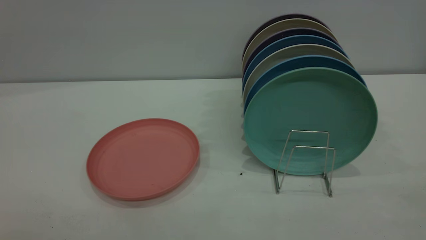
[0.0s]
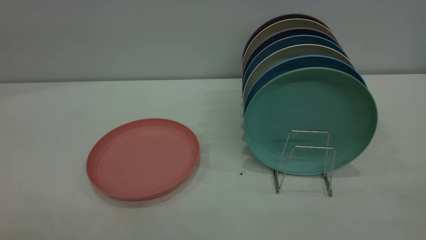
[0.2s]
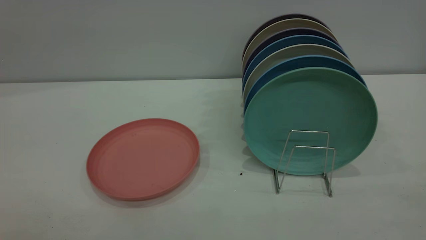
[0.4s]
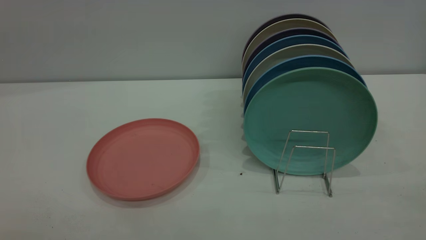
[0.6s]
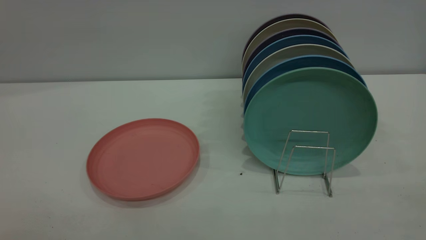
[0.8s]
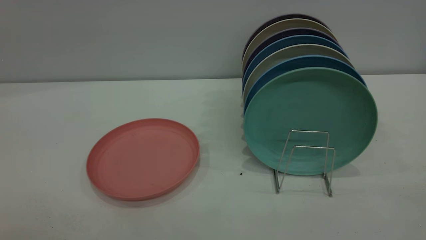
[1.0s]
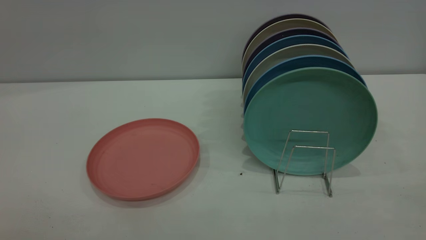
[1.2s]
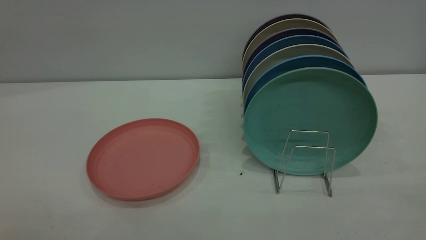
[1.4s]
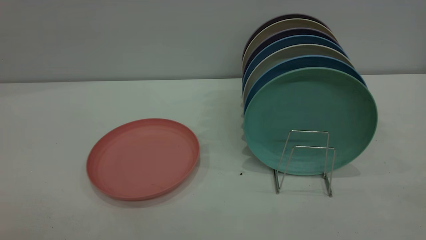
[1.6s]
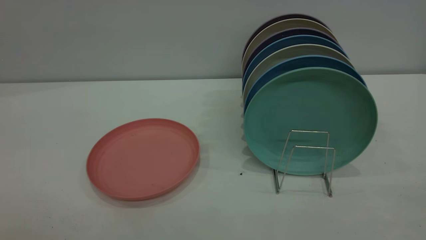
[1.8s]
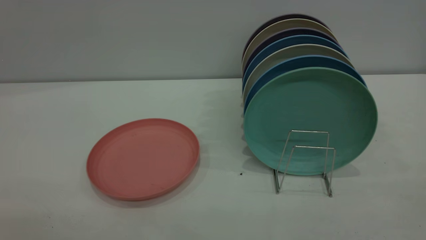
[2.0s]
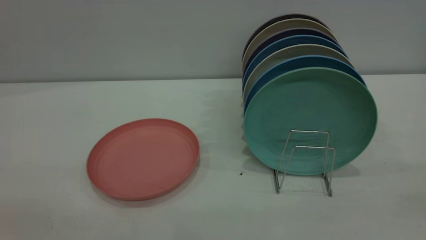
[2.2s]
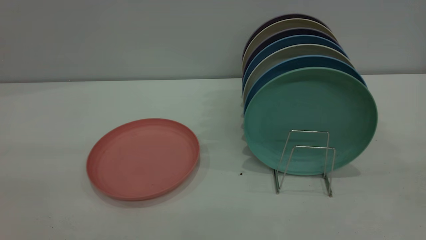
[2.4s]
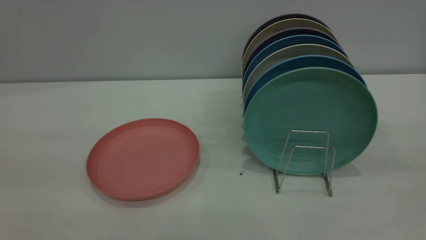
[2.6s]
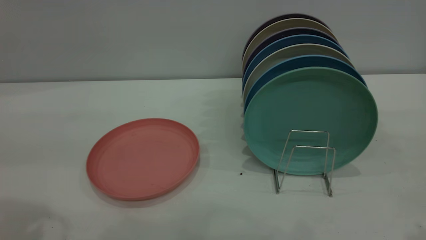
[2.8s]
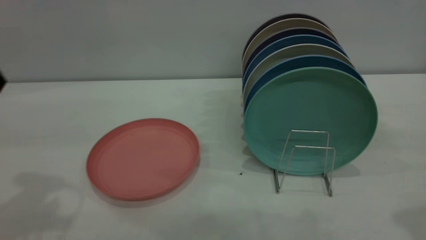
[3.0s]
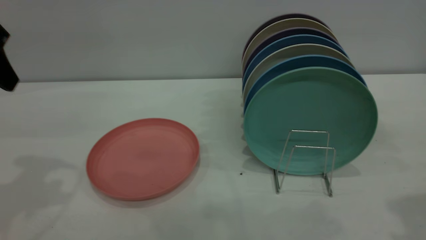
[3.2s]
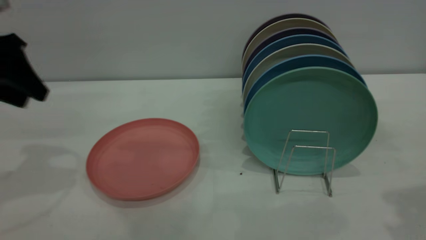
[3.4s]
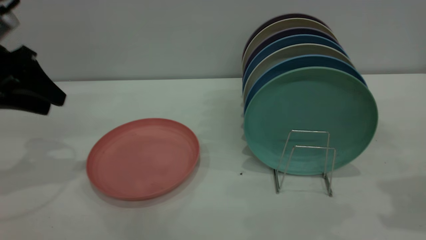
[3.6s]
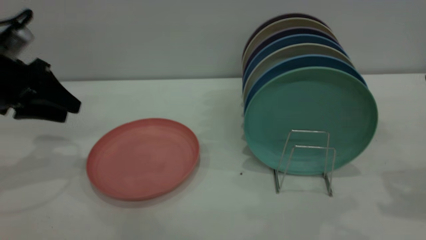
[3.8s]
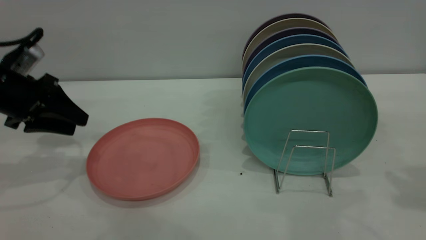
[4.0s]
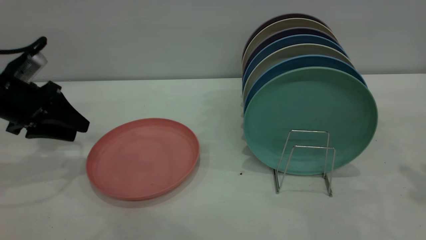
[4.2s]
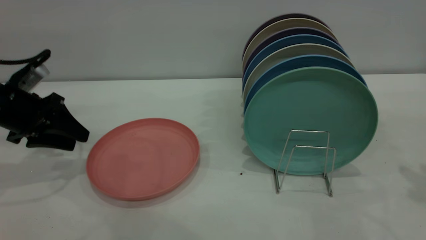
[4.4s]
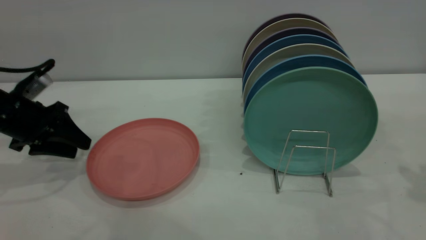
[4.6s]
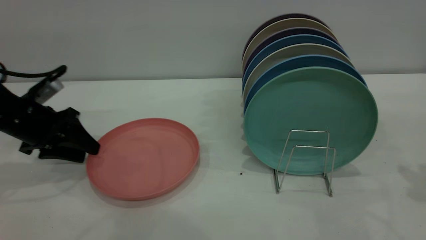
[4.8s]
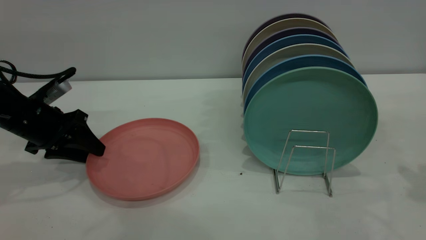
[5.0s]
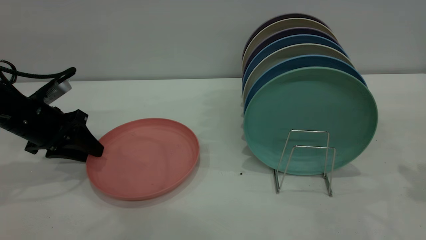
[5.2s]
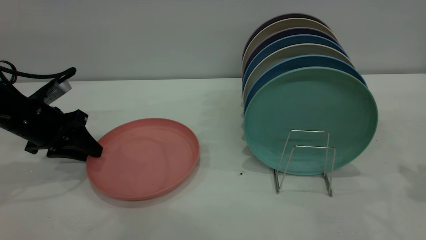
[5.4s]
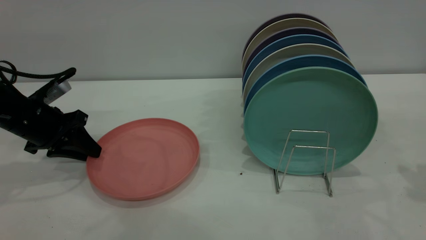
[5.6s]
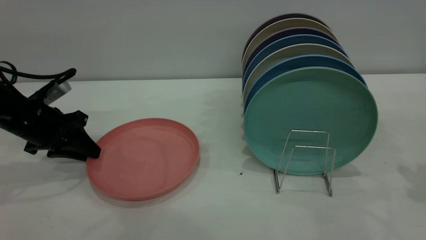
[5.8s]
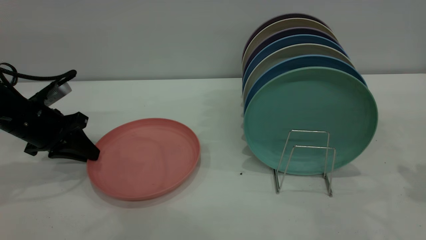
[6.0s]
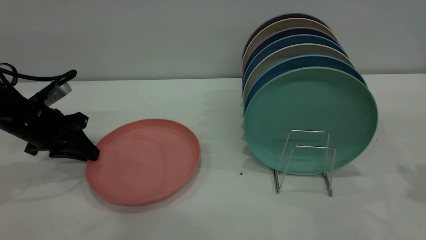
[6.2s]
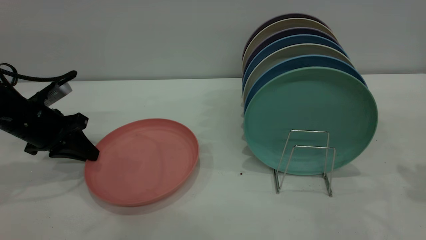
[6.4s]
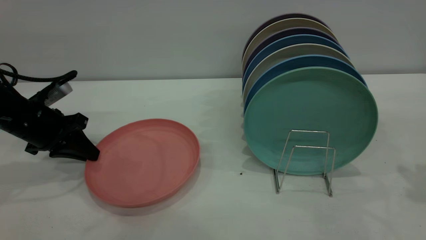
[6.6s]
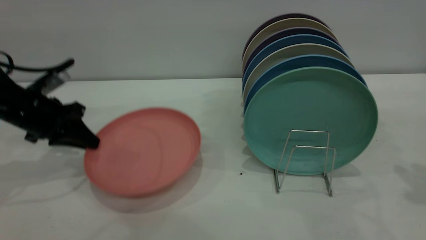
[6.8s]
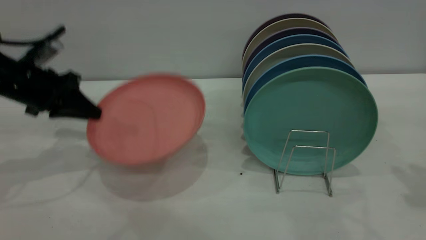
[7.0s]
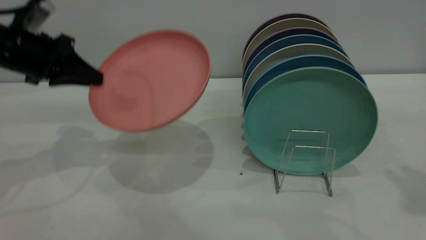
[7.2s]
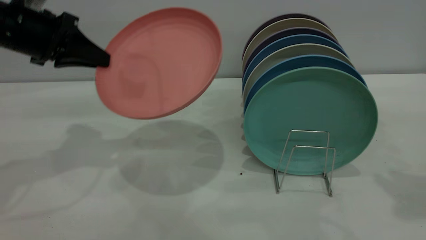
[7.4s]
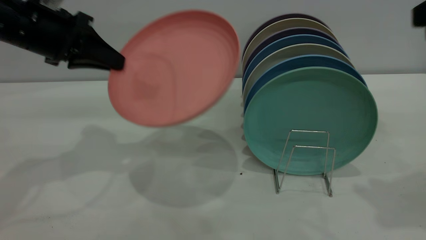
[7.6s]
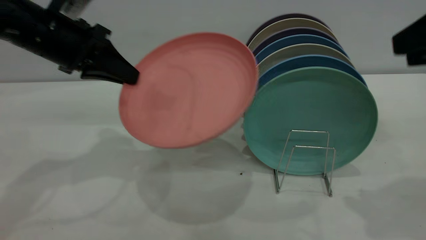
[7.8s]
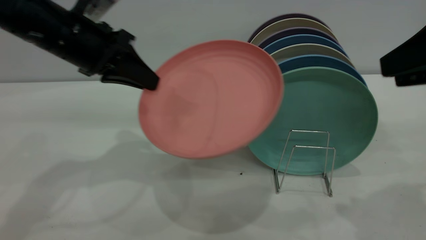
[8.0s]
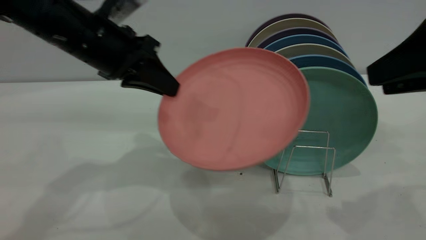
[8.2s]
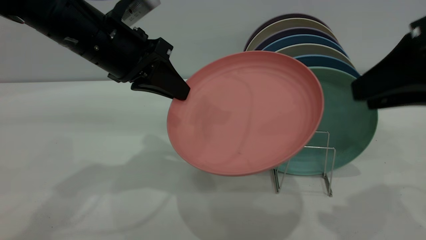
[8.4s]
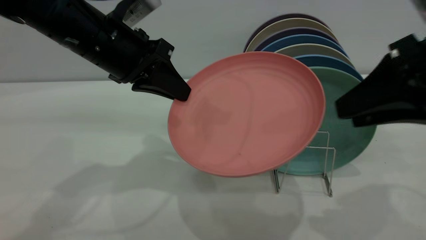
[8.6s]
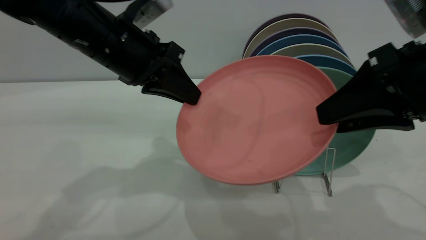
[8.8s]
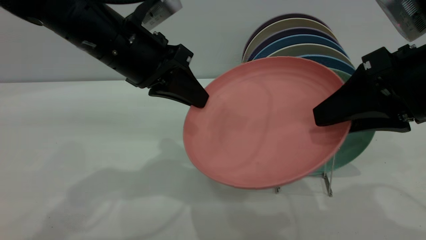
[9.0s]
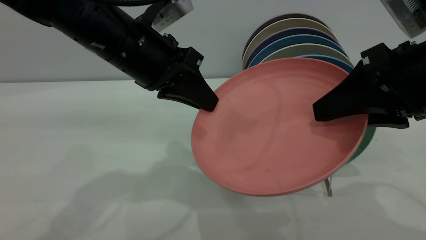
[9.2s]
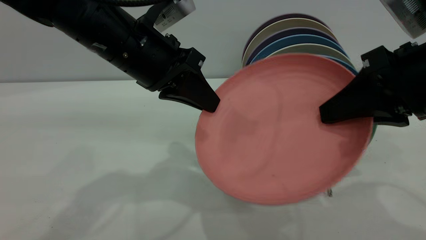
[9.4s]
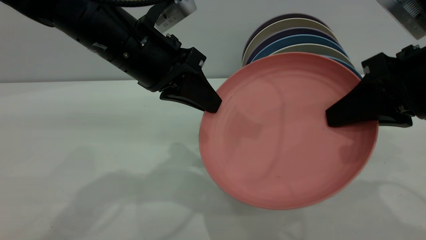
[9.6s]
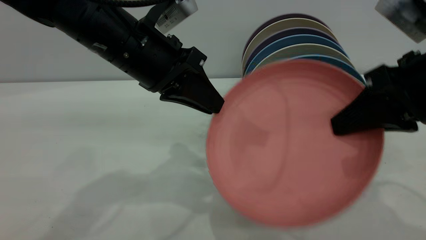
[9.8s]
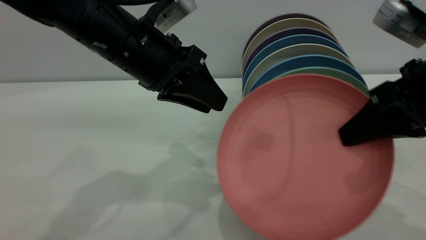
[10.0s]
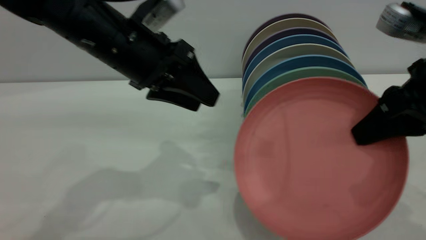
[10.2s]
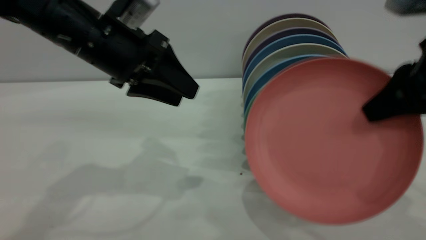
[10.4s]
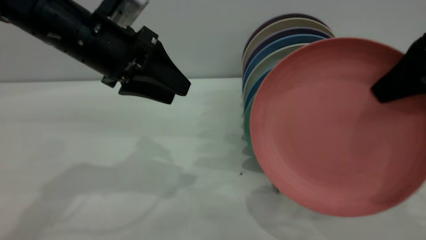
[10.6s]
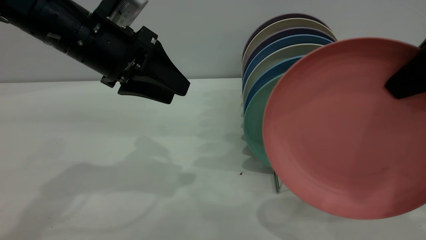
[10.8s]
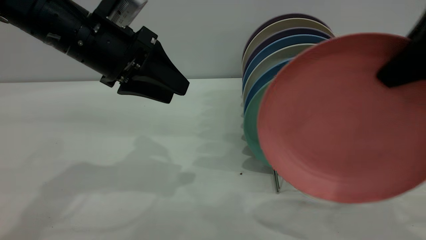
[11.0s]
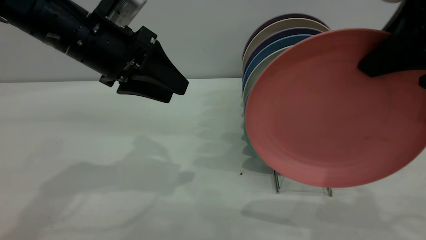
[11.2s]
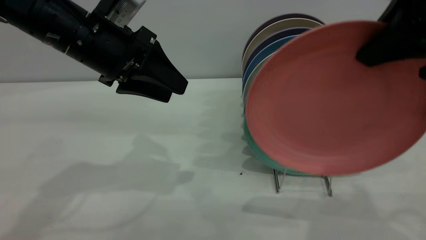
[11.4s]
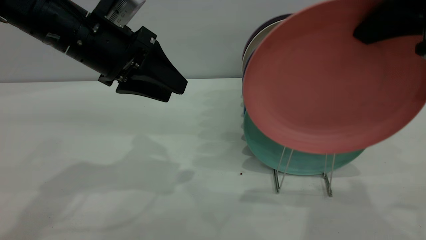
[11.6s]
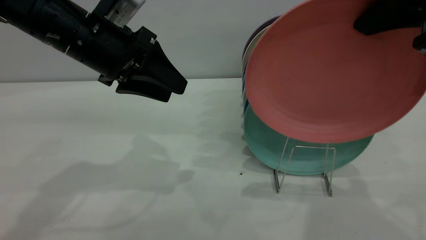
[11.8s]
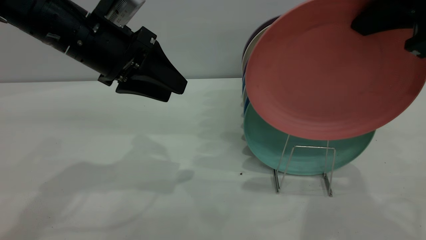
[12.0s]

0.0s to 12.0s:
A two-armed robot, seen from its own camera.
Task of the whole recording: put the plate on the plate rack.
Step, 0.0s to 6.8s: Pick up the plate with the left gripper.
Step, 7.0s to 10.0s: Pass the plate from the left gripper to the right gripper.
0.0s to 1.6s: Neither gripper changes place.
3.0s to 4.4s: The right gripper travels to the right, forward and downward by some 10 cm. The left gripper is displaced downward and forward by approximately 20 cm.
4.4s to 6.0s: The left gripper closes.
6.0s to 7.6s: The right gripper shifts roughly 5 cm to the left. Meanwhile the left gripper is displaced upward and to the right by approximately 15 cm.
7.6s to 9.0s: The left gripper is displaced to the right by about 15 cm; the right gripper travels to the left and downward by roughly 10 cm.
9.0s to 10.4s: The left gripper opens. Meanwhile the right gripper closes.
10.4s to 12.0s: The right gripper is displaced upward by roughly 10 cm.

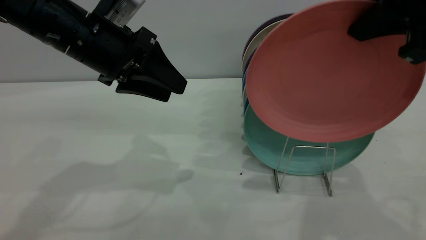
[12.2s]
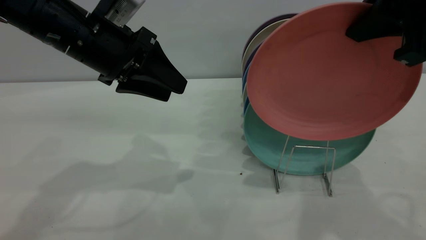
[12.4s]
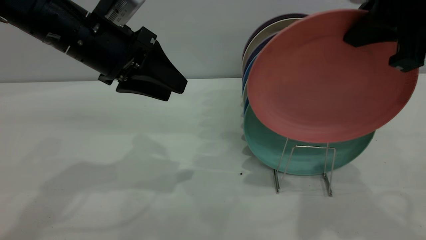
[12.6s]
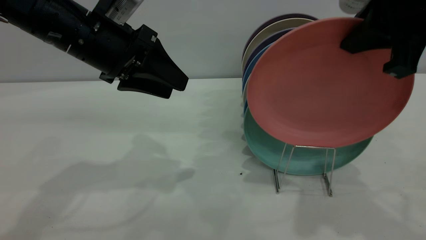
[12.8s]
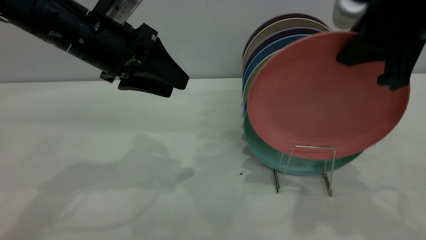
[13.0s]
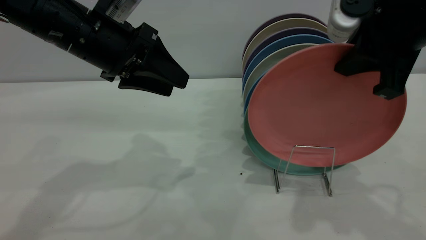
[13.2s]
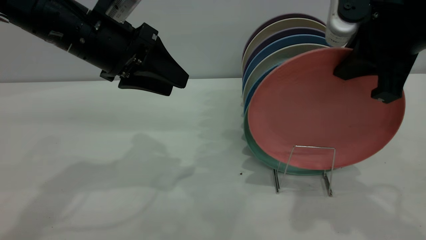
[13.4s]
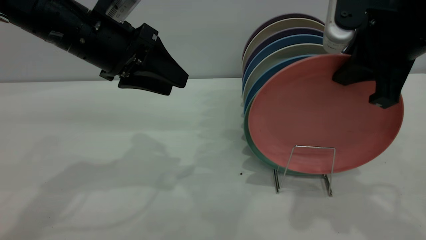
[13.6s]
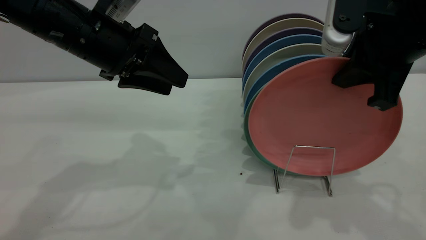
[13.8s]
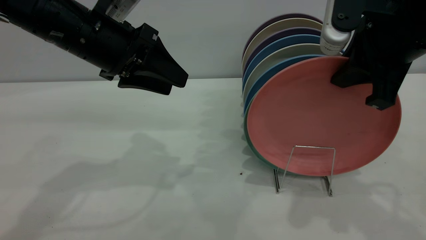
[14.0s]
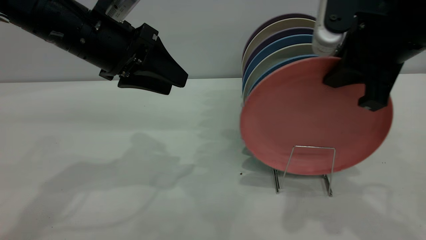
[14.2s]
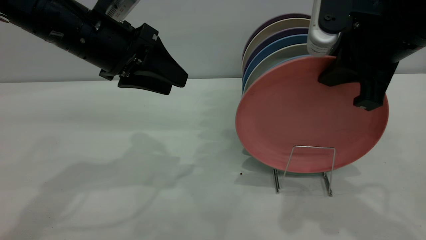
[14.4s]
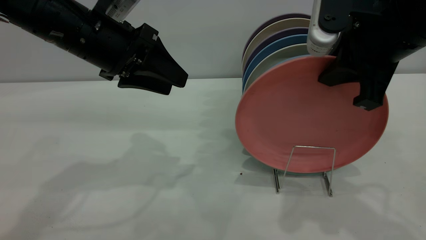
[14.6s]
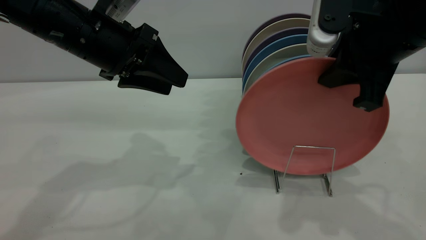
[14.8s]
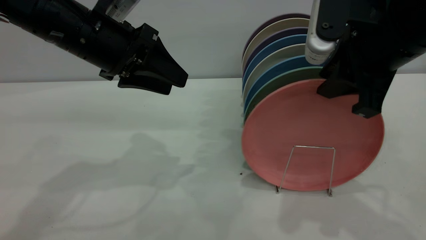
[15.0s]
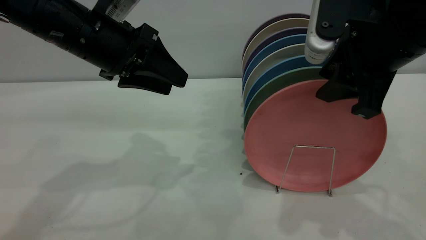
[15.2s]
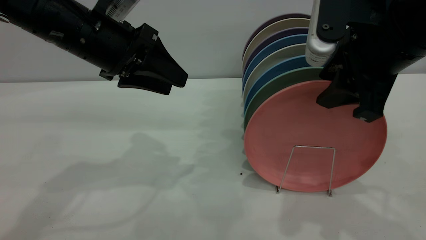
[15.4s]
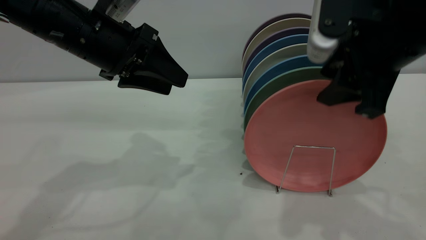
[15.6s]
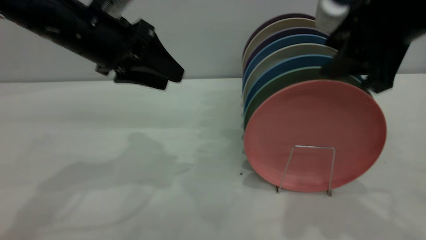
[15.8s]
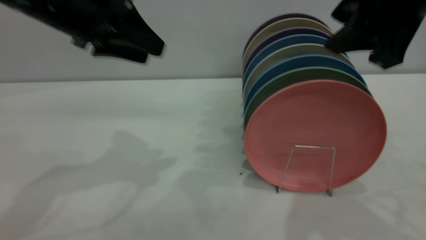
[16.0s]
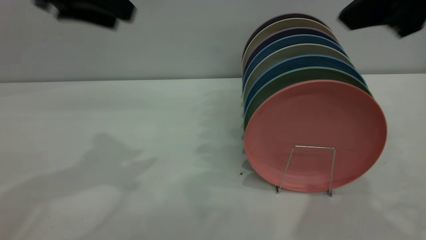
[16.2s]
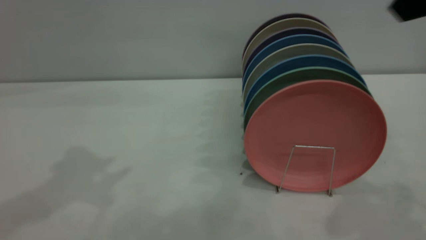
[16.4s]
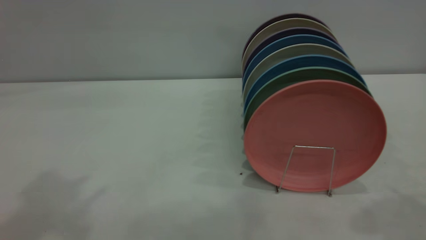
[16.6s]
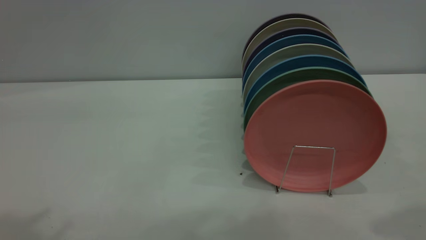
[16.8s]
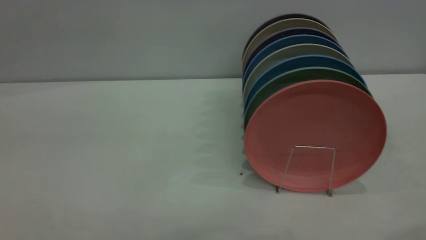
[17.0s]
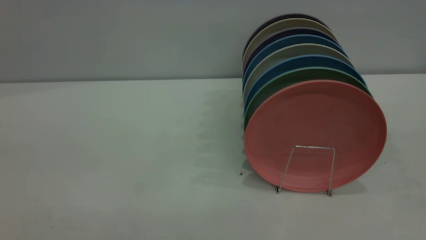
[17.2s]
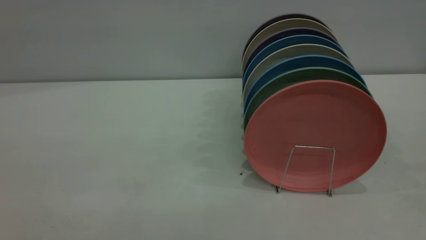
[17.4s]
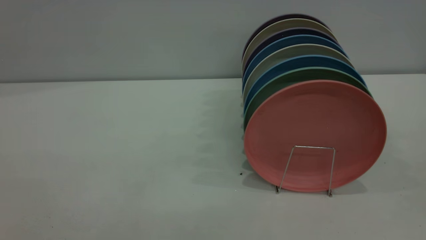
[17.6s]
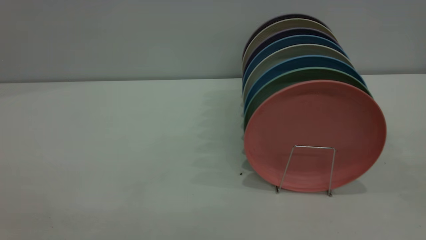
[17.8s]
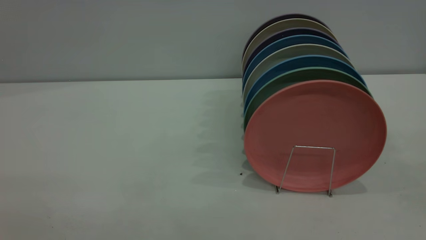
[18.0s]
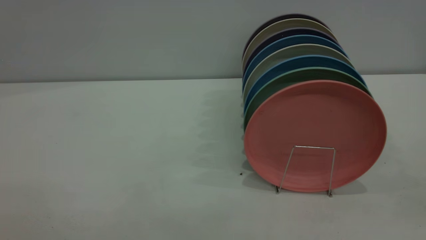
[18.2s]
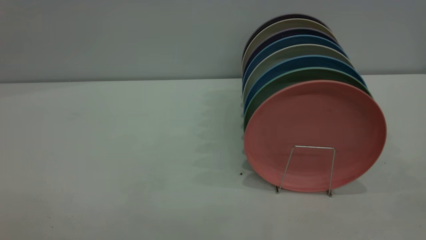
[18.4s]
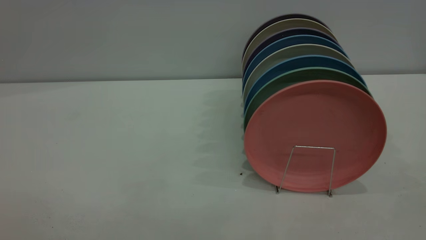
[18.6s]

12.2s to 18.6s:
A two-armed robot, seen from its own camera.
Task of the whole recording: put the plate on the plate rack.
Step, 12.2s to 16.0s: Place the plate on the shelf.
12.2s to 13.8s: The right gripper is displaced downward by roughly 5 cm.
13.8s to 15.4s: The right gripper opens its fingers.
15.4s to 17.0s: The left gripper shifts about 35 cm upward and backward. Meanwhile the right gripper shifts roughly 20 cm upward, backward and to the right.
